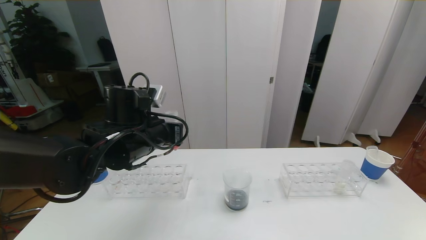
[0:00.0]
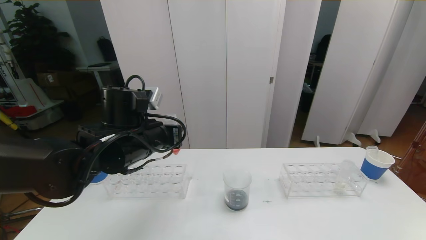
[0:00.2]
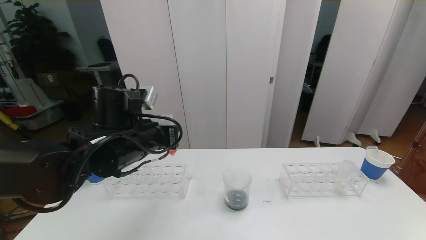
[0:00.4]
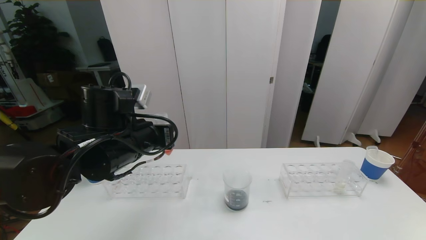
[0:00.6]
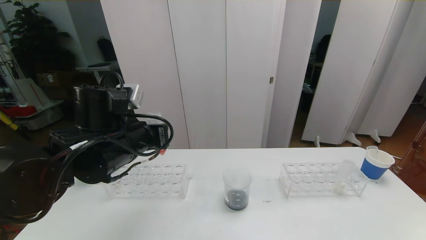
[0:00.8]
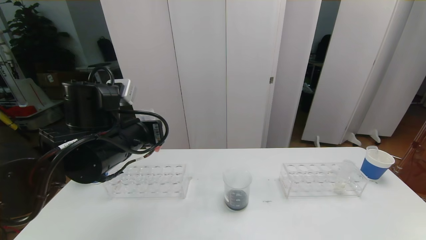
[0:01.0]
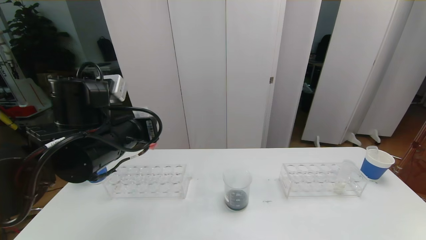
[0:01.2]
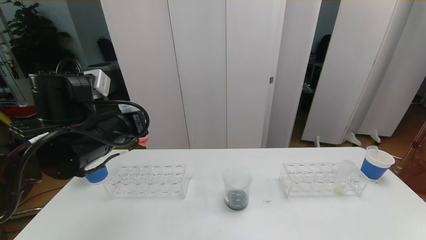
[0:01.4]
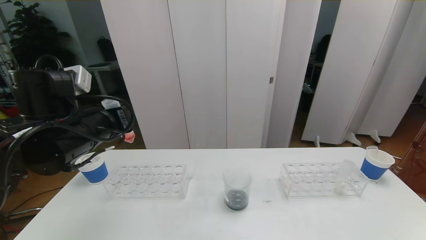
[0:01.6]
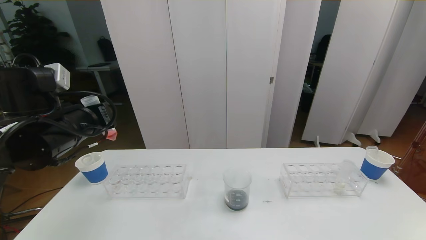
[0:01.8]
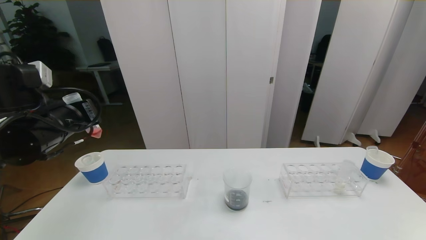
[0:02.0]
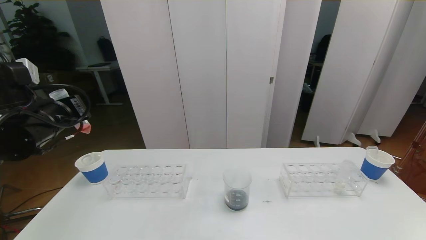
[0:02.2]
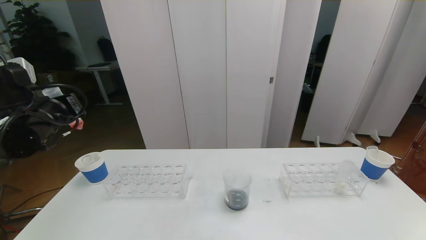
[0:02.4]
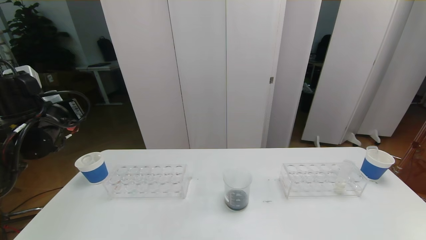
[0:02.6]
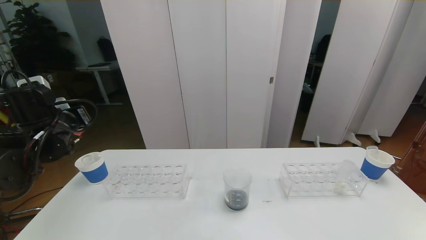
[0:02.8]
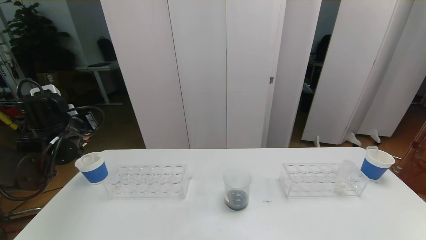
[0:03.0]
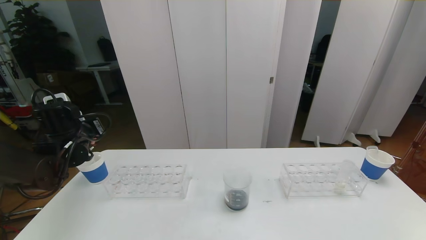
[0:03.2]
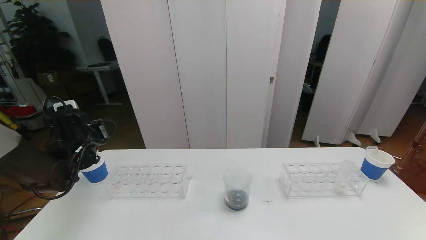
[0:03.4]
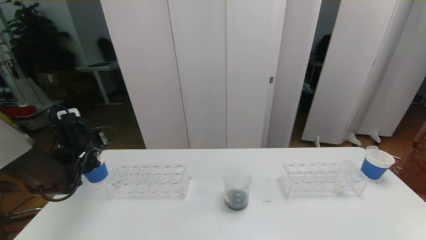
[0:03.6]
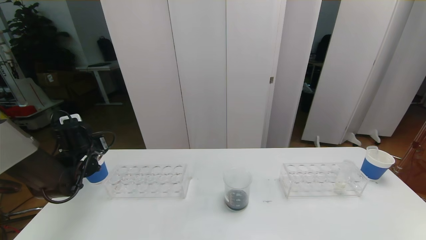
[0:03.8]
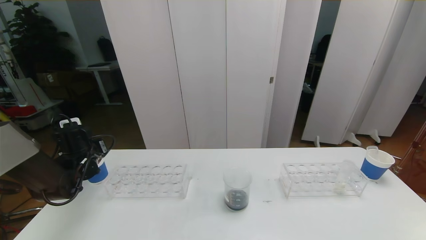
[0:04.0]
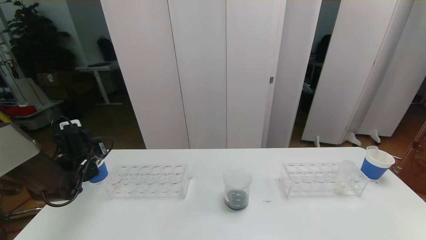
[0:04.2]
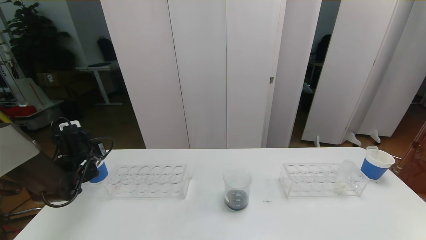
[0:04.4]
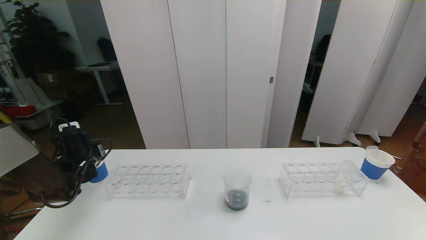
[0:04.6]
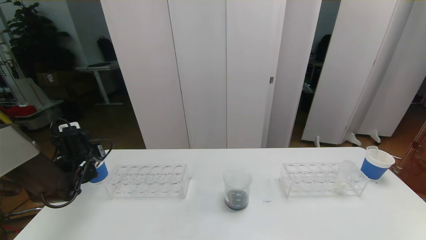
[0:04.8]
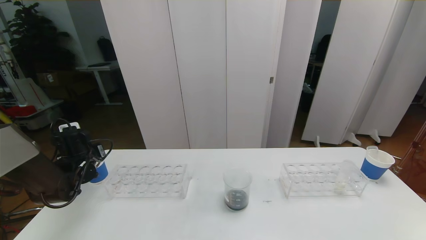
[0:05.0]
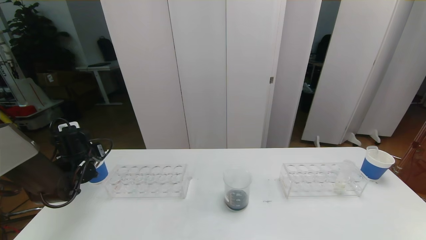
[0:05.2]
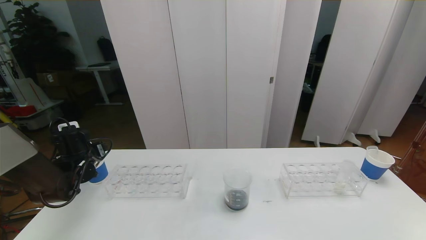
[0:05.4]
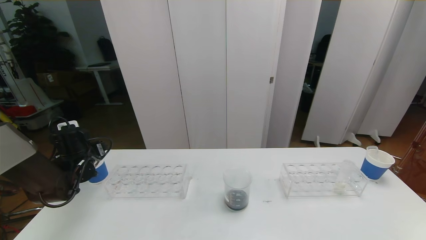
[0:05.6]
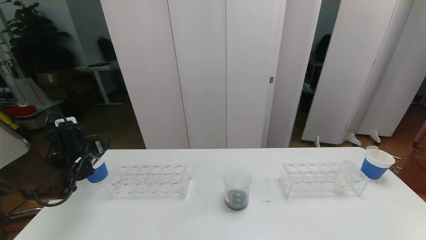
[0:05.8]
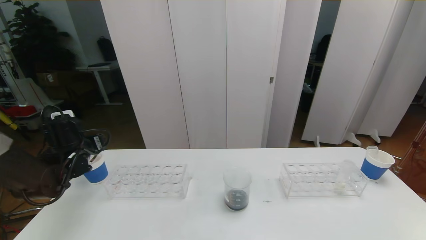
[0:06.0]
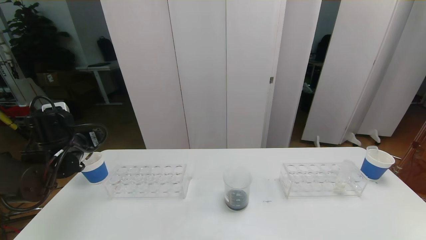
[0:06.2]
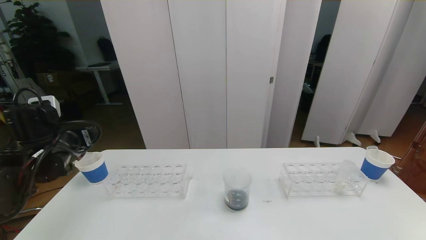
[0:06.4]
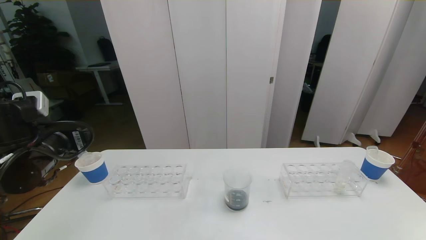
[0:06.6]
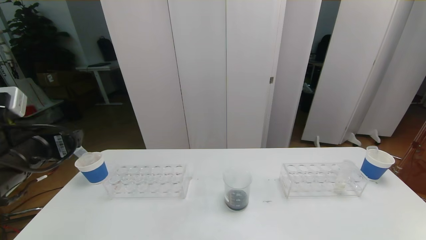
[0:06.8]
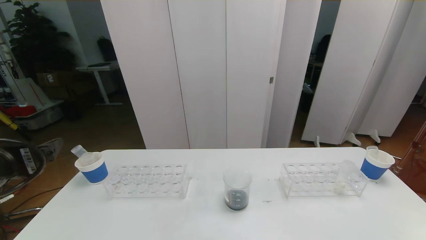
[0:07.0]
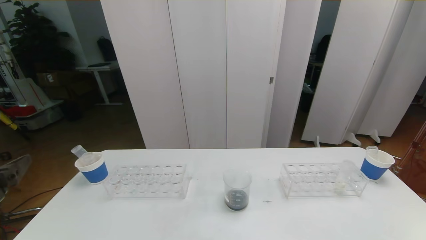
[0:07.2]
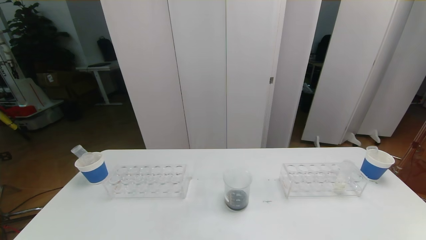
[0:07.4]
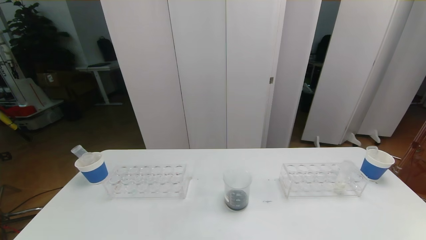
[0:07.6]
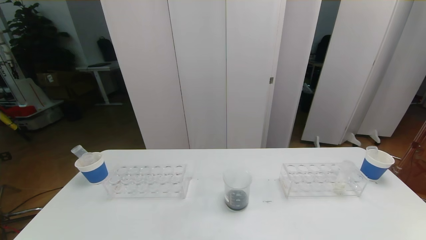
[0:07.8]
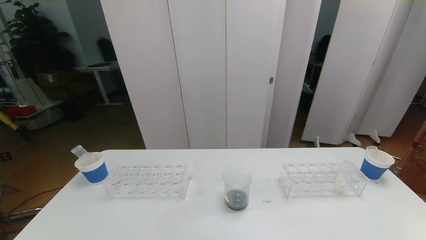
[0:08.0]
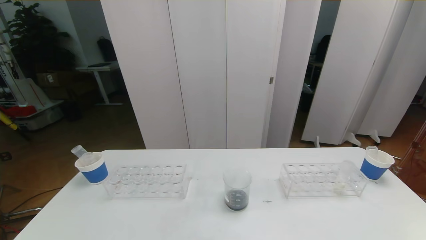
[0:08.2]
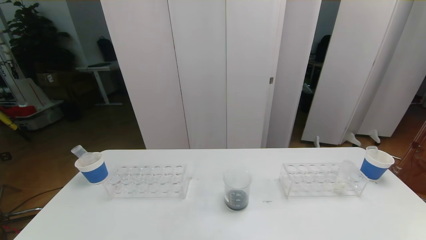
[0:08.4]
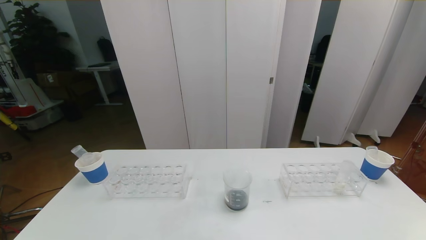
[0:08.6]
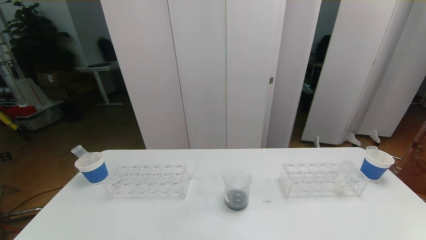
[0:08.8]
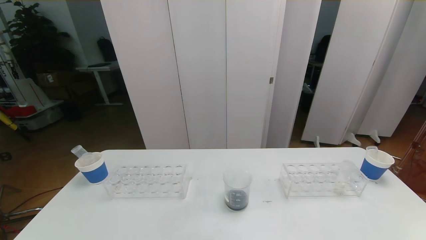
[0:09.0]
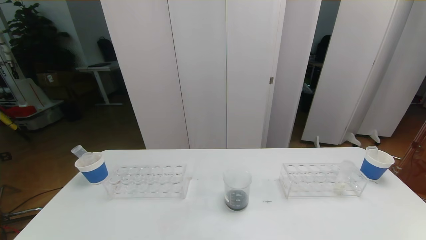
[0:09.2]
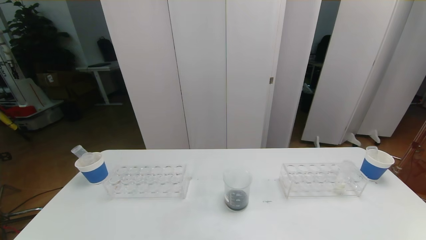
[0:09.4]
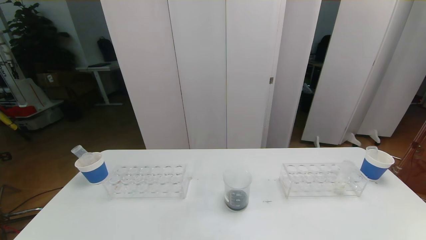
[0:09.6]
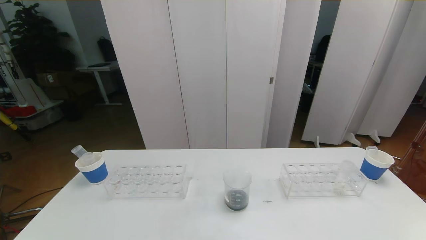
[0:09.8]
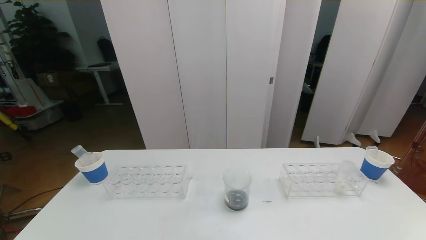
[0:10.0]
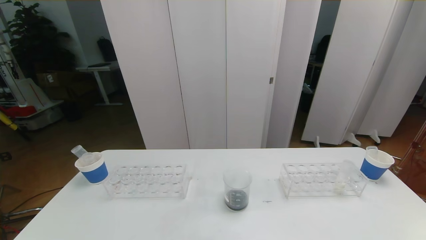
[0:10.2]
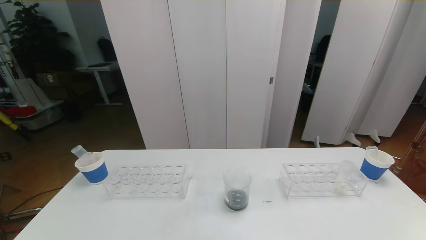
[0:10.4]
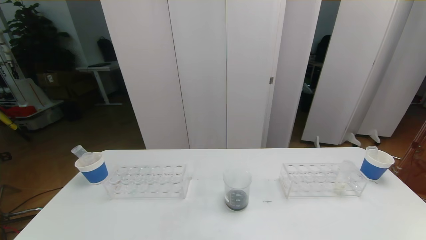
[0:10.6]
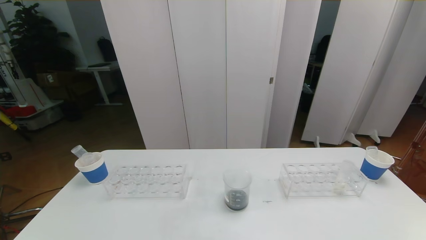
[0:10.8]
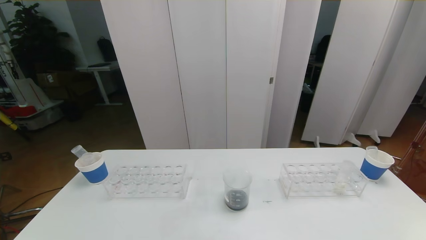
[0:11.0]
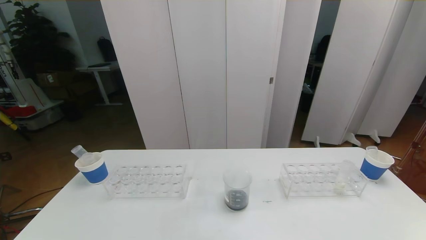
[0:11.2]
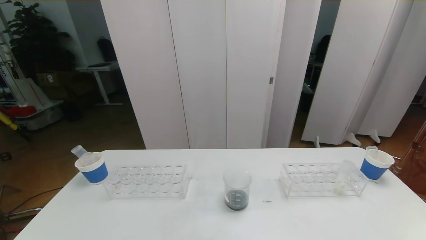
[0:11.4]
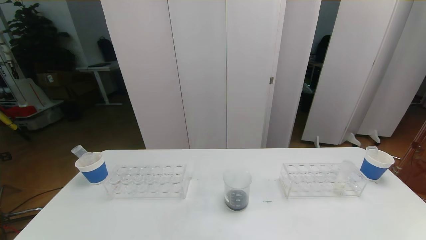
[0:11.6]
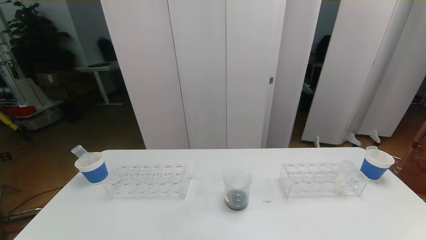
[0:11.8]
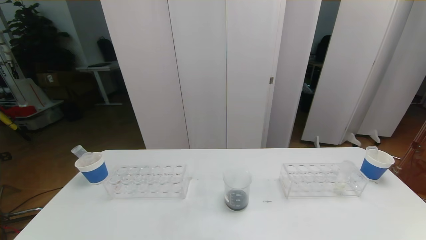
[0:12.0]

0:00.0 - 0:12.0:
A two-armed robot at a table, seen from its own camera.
Task of the whole recording: pick up the test tube with red pigment the test tube with blue pigment and the test tube with white pigment by grippers and pour them into the beaker.
Step, 0:00.0 - 0:10.4: Pour the orange reagent into the graduated cylinder and place the test tube into the paper cup.
0:00.0 - 0:01.6: The left gripper is displaced to the left by about 5 cm.
0:01.6 - 0:03.0: The left gripper heads to the left, forward and downward, covering roughly 15 cm.
0:03.0 - 0:04.4: The left gripper travels downward by some 10 cm.
0:04.4 - 0:06.0: The left gripper moves some 5 cm, and opens.
0:06.0 - 0:07.6: The left gripper moves backward, roughly 35 cm.
0:09.0 - 0:10.4: The two grippers keep their place.

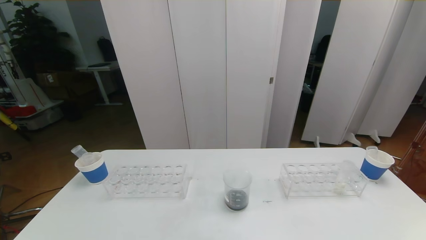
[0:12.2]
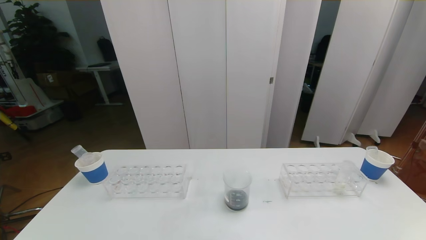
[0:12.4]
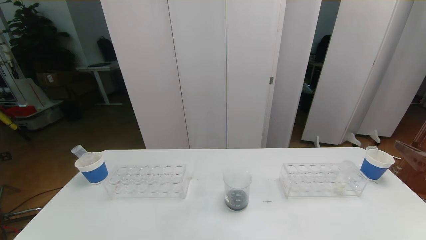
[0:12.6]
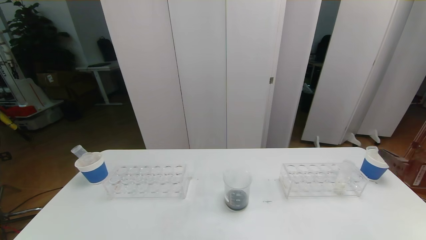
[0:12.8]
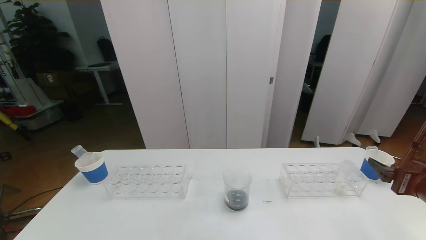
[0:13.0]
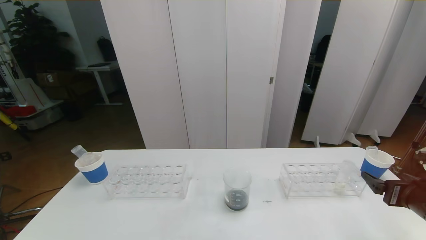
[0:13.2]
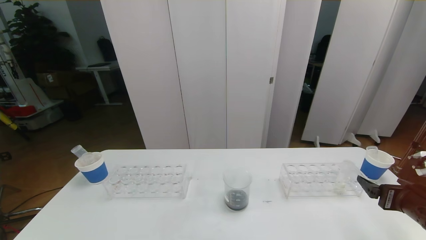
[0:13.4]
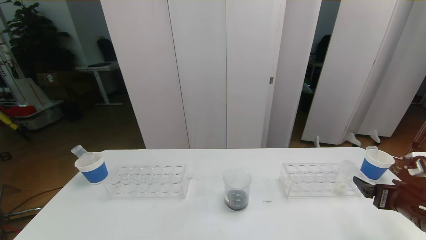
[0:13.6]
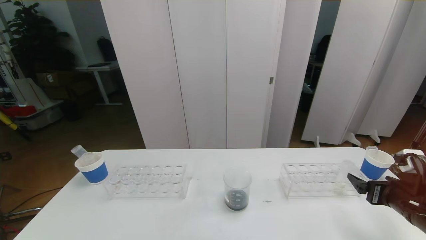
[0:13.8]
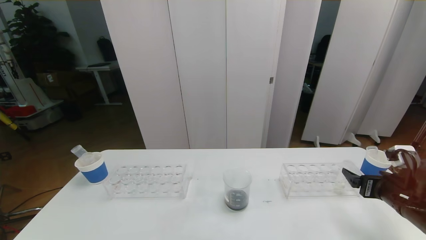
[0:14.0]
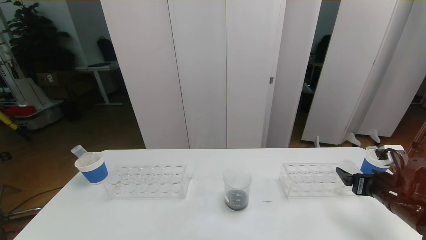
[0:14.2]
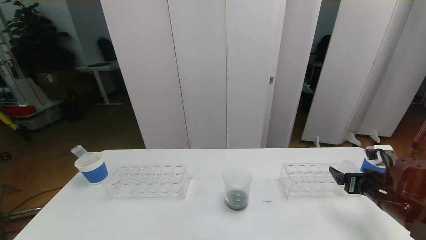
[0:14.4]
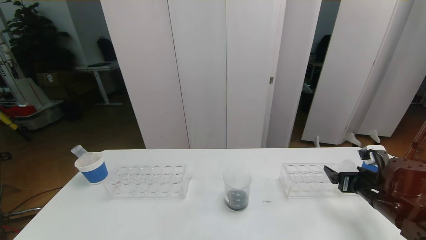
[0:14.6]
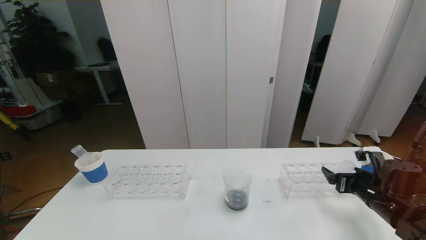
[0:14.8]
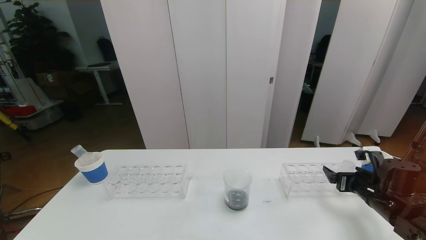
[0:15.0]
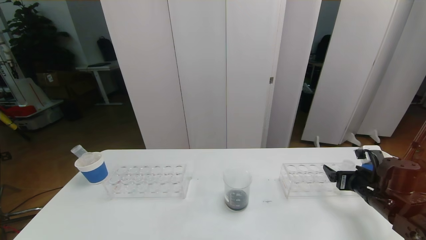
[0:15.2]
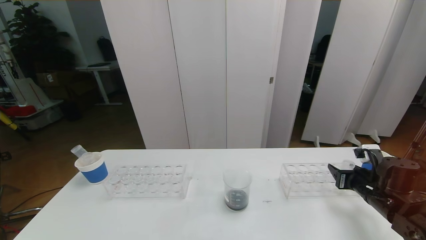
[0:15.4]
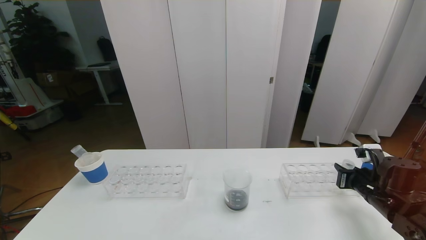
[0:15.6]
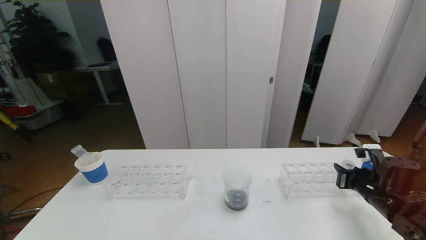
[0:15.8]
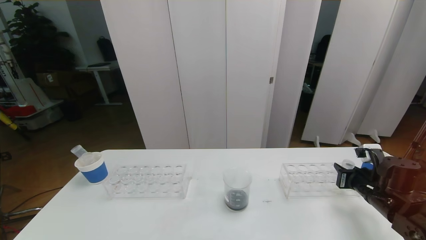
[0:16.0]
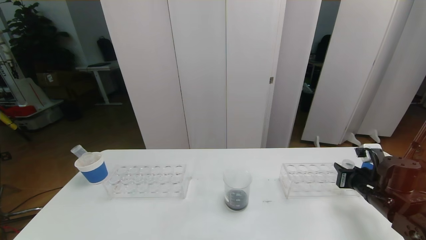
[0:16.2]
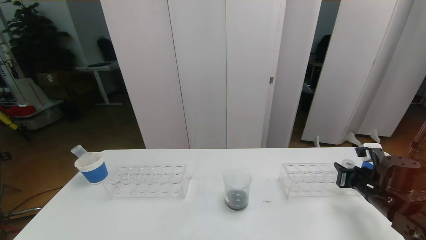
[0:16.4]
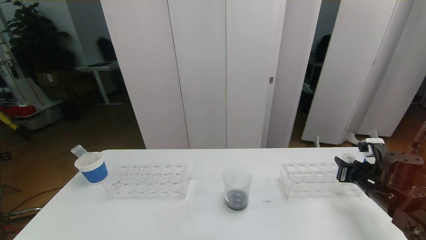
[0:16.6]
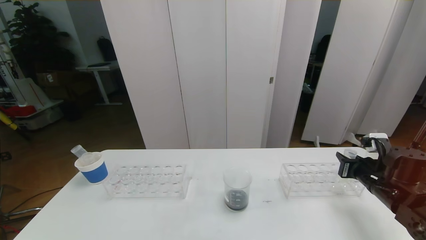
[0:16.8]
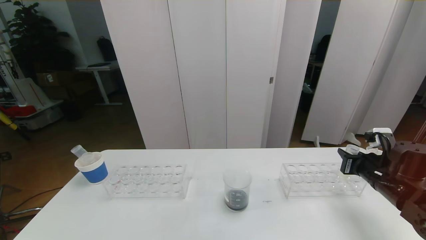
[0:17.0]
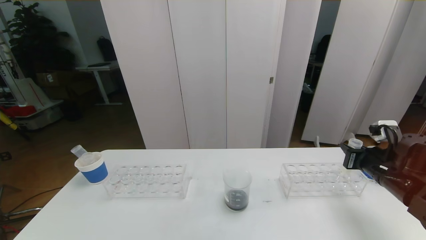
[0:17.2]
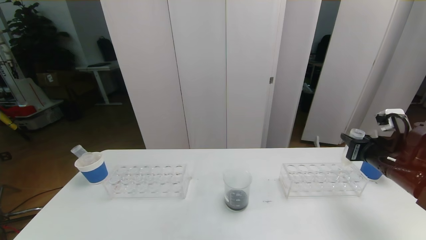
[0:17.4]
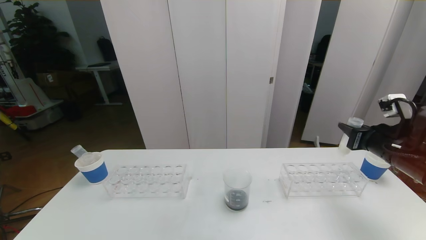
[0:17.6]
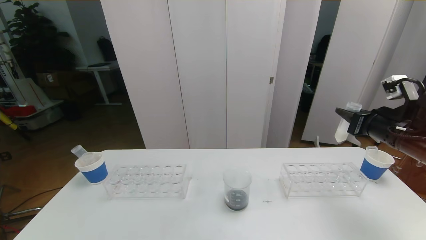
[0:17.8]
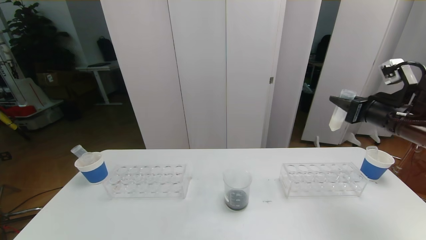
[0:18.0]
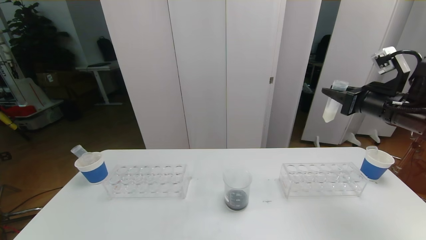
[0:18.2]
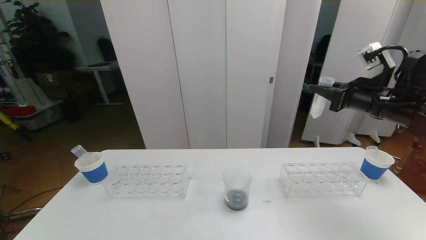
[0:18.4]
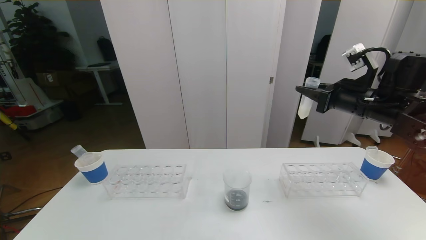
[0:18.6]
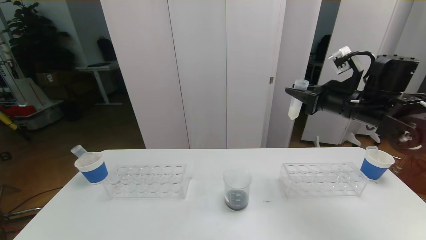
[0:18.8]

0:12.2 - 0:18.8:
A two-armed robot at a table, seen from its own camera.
Task of the whole recording: pick up the test tube with red pigment the test tube with blue pigment and the test tube with white pigment by grippers and pour them into the beaker.
0:12.2 - 0:13.8: The right gripper heads downward and forward, covering some 20 cm.
0:13.8 - 0:15.4: The right gripper heads forward, covering approximately 5 cm, and closes its fingers.
0:15.4 - 0:17.2: The right gripper is displaced upward by some 5 cm, and closes up.
0:17.2 - 0:18.8: The right gripper goes some 15 cm upward, to the left and forward.
